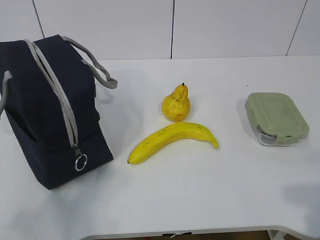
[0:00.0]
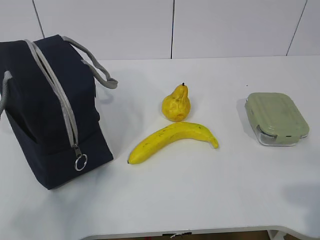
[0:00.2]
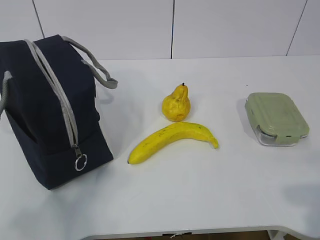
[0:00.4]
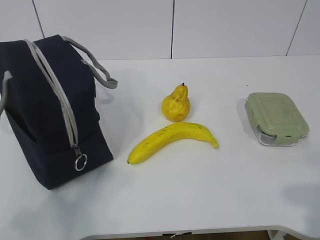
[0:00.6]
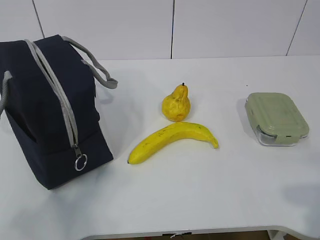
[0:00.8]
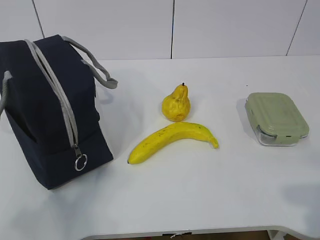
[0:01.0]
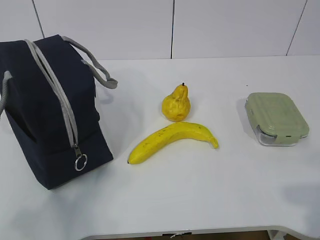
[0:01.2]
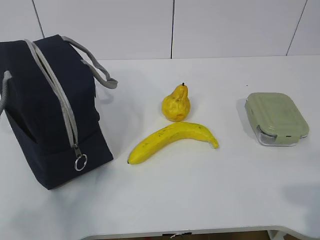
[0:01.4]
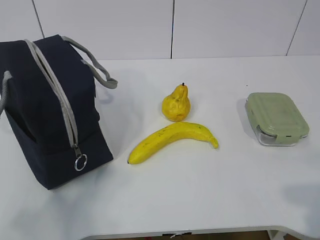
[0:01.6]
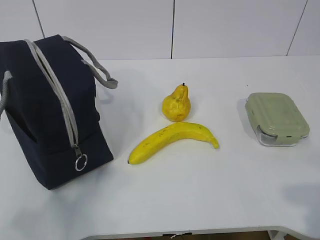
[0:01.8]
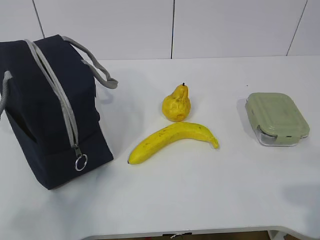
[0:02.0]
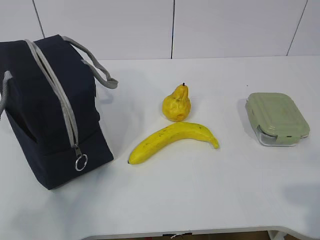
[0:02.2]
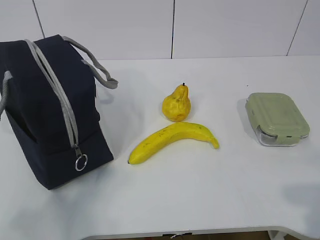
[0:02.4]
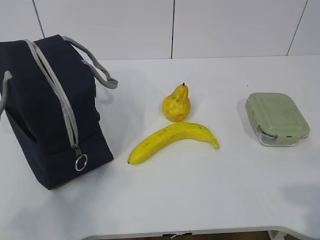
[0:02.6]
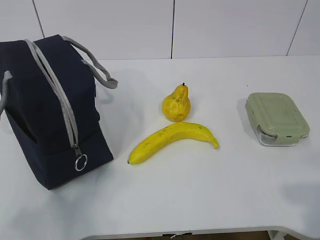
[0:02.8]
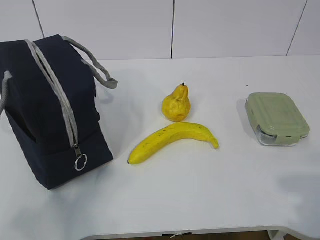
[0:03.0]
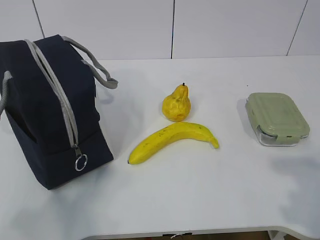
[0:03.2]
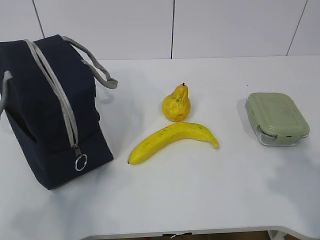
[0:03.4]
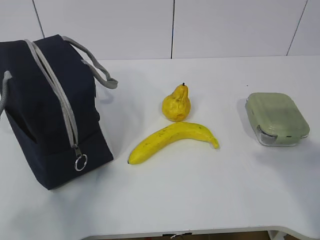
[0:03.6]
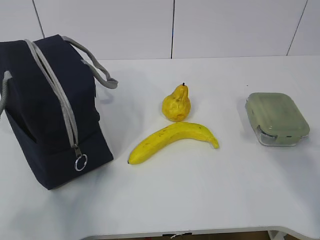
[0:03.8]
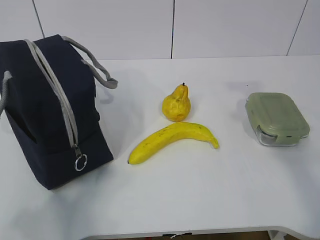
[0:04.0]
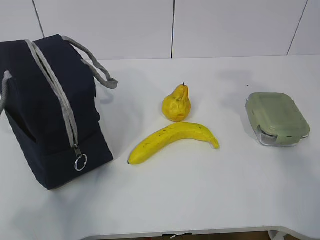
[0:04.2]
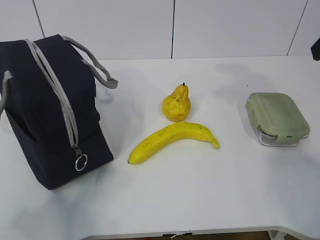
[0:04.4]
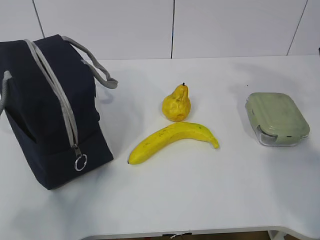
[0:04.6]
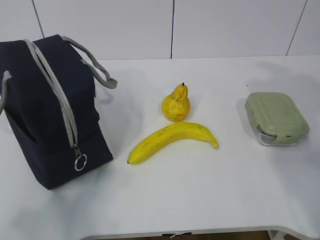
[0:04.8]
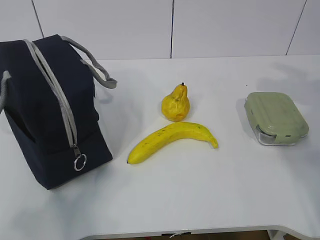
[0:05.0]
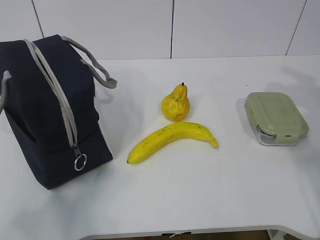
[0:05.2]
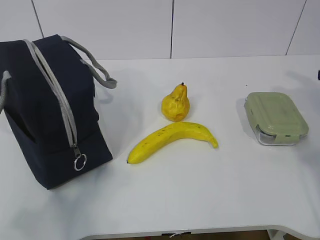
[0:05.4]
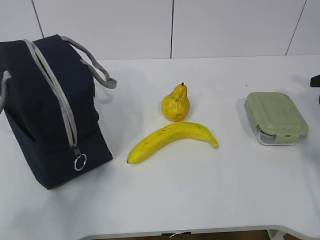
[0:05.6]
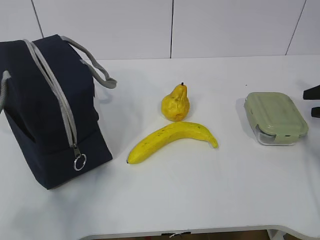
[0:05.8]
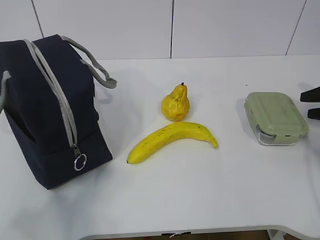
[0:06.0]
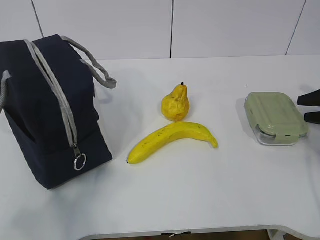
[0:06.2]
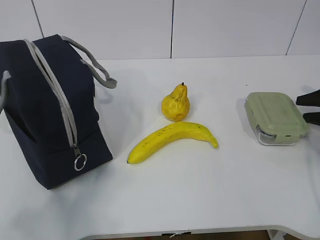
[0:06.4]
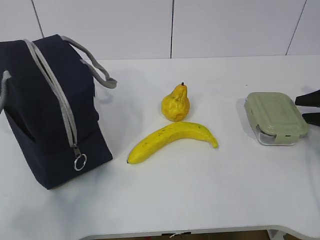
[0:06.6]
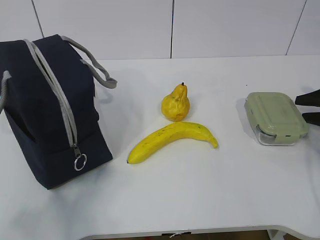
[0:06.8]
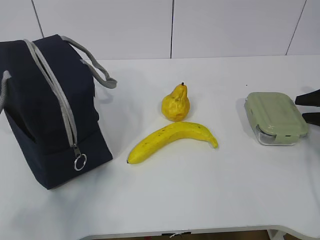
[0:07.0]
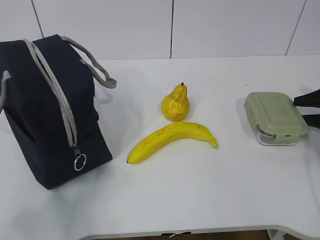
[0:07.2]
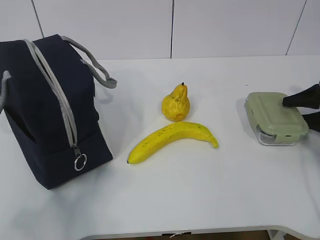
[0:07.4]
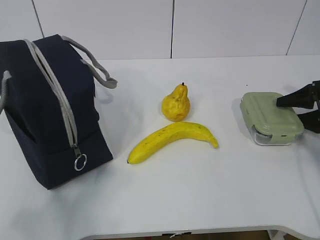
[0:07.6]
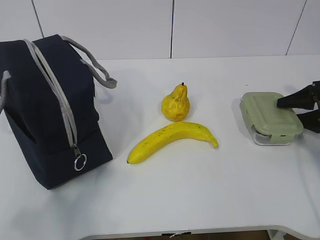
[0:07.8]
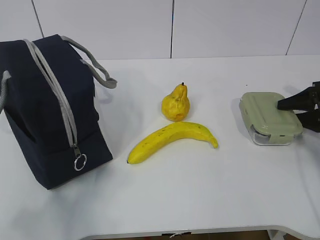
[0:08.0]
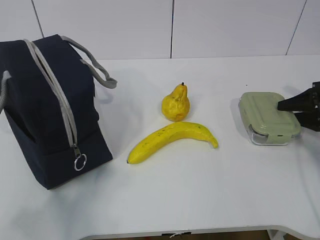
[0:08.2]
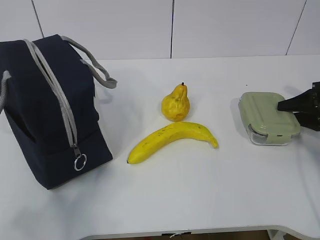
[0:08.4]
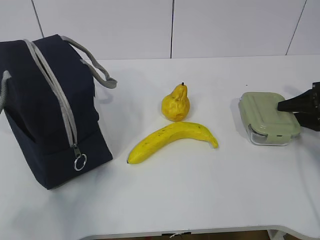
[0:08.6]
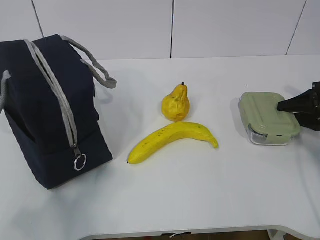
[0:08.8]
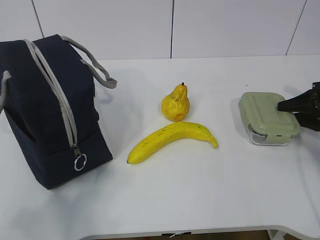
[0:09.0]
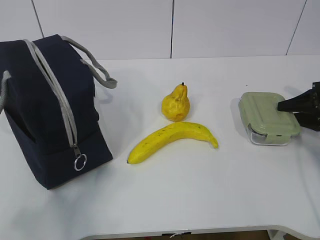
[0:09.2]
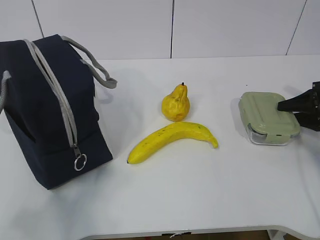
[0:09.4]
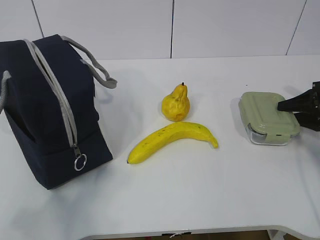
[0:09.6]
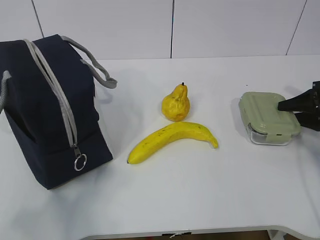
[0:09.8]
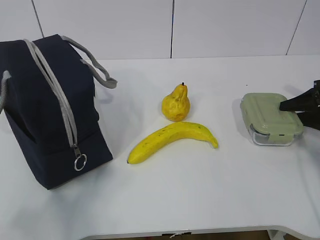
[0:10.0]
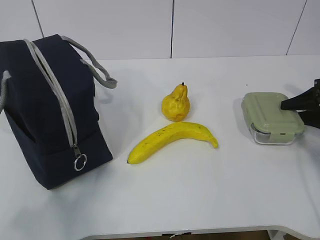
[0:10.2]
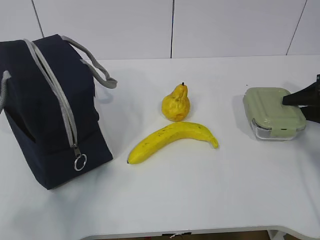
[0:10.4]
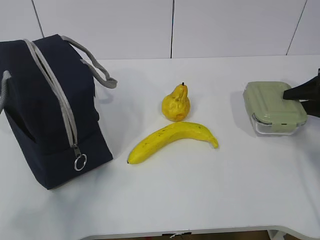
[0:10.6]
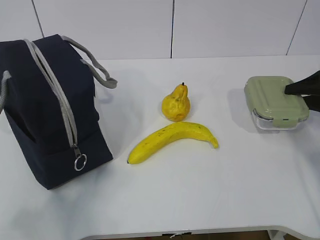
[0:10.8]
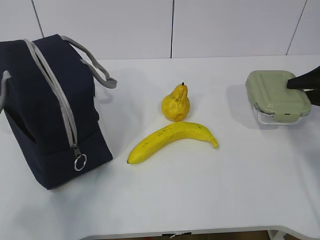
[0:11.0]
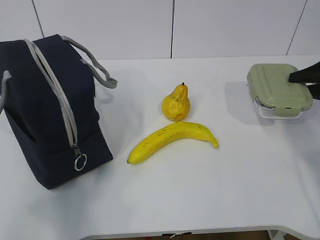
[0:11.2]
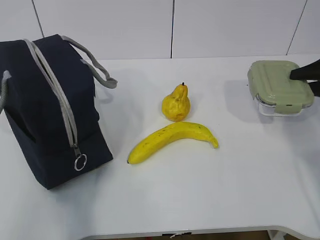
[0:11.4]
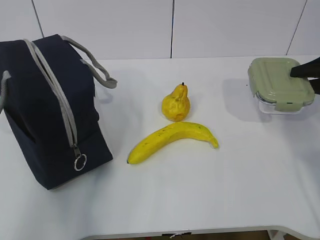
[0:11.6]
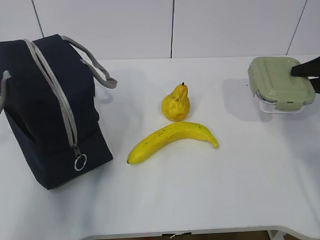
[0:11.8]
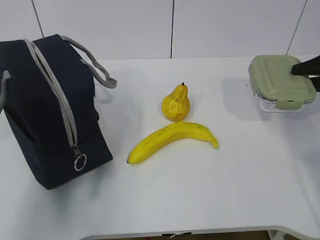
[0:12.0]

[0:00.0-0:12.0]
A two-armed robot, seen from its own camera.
Step, 0:00.0 to 0:08.4: Grasp the box with the right gripper.
0:01.6 to 0:03.0: Both grippers stay about where they are.
0:03.0 to 0:04.4: The right gripper heads forward, covering about 25 cm.
0:04.4 to 0:06.0: The right gripper shifts approximately 30 cm downward, to the right and forward.
0:06.0 to 0:07.6: The grippers make only small movements.
0:07.6 to 0:09.0: The two grippers keep their place.
0:09.0 to 0:10.4: There are only small adjustments of the grippers.
0:10.4 to 0:12.0: The left gripper heads forward, covering about 15 cm. The right gripper shifts roughly 5 cm upward.

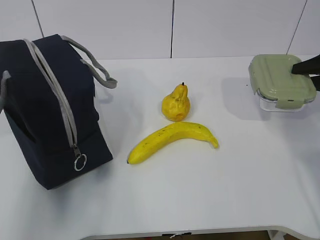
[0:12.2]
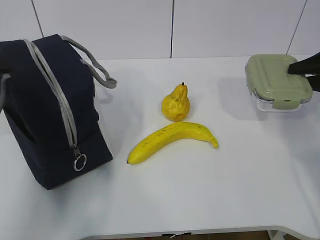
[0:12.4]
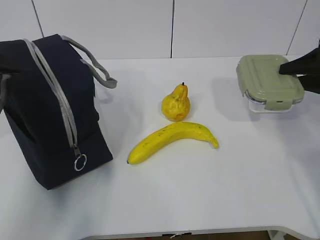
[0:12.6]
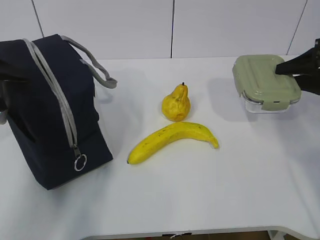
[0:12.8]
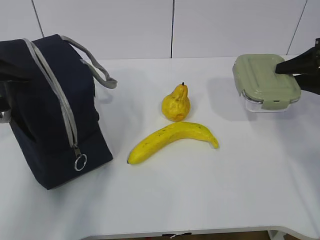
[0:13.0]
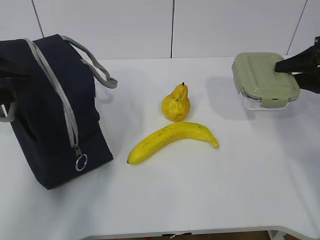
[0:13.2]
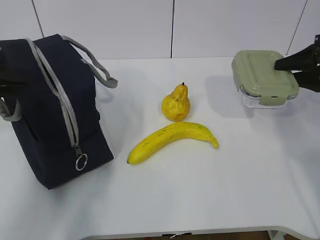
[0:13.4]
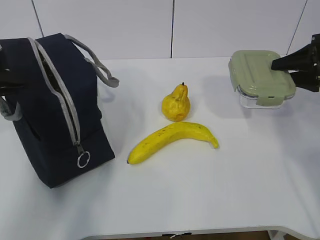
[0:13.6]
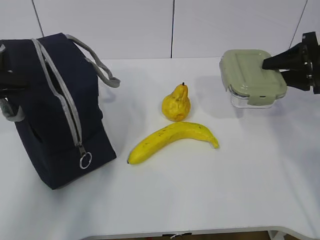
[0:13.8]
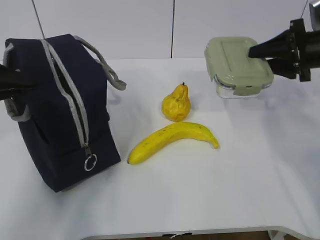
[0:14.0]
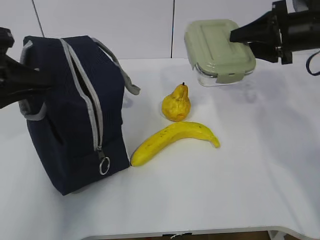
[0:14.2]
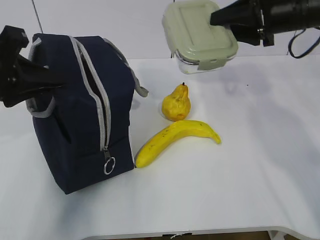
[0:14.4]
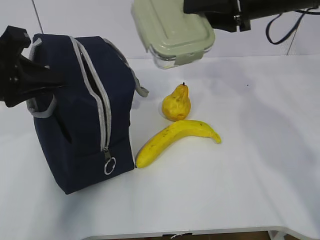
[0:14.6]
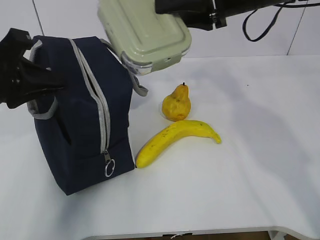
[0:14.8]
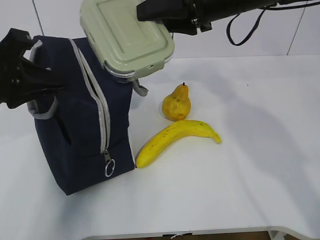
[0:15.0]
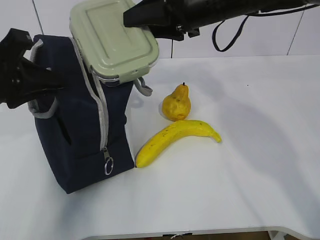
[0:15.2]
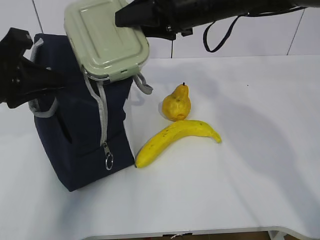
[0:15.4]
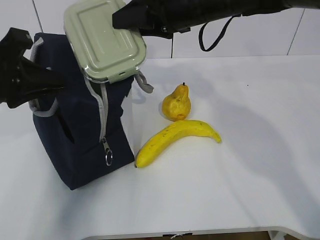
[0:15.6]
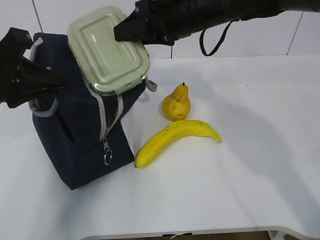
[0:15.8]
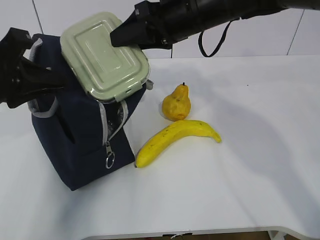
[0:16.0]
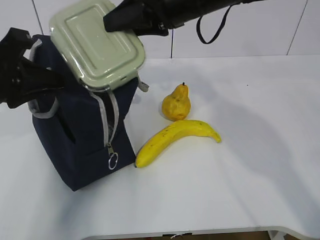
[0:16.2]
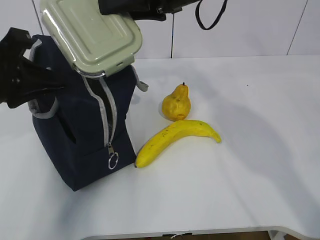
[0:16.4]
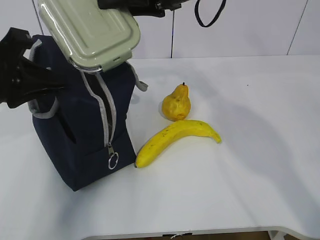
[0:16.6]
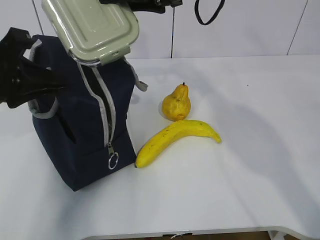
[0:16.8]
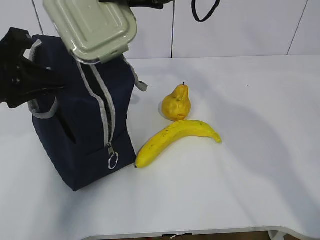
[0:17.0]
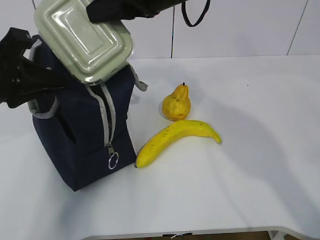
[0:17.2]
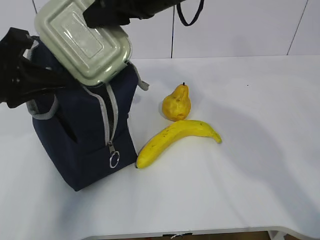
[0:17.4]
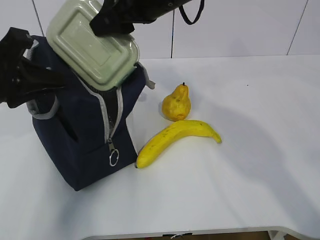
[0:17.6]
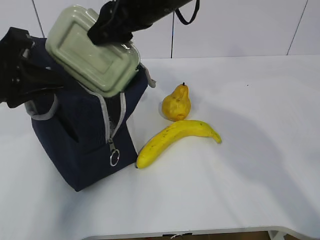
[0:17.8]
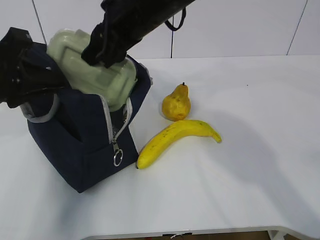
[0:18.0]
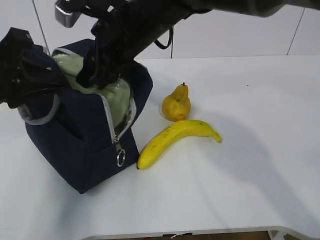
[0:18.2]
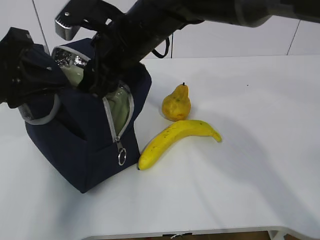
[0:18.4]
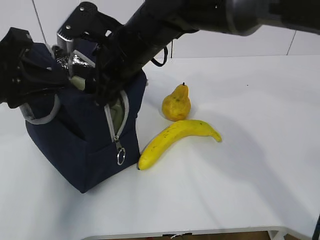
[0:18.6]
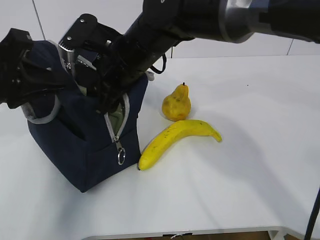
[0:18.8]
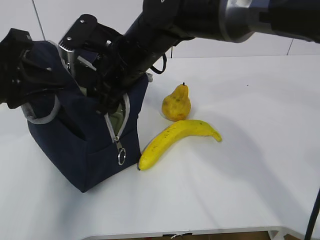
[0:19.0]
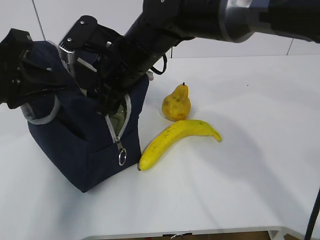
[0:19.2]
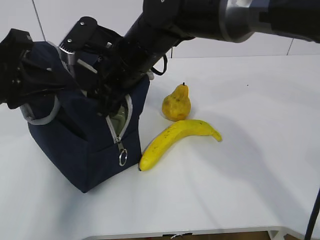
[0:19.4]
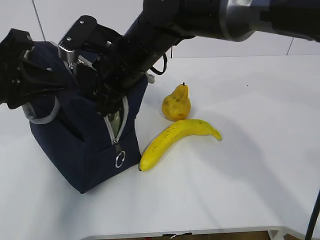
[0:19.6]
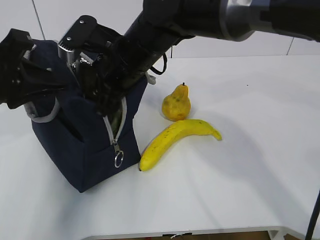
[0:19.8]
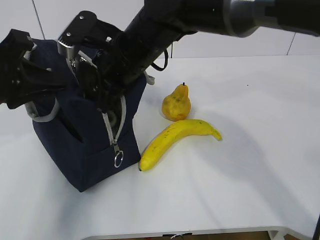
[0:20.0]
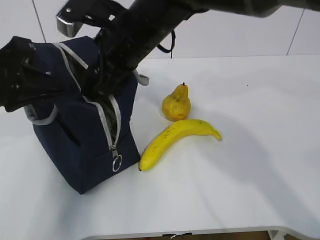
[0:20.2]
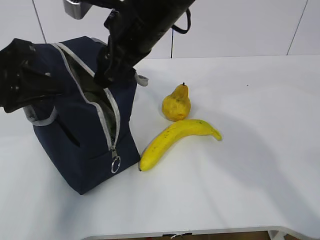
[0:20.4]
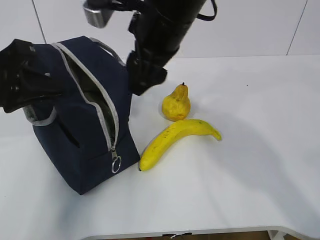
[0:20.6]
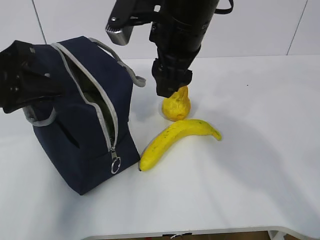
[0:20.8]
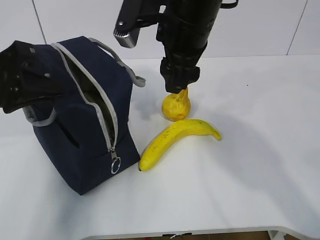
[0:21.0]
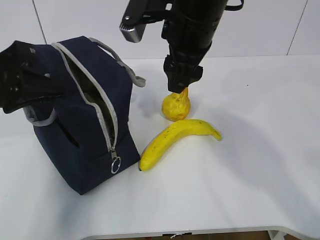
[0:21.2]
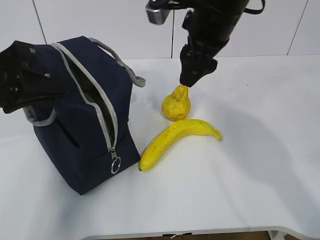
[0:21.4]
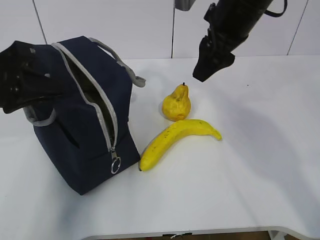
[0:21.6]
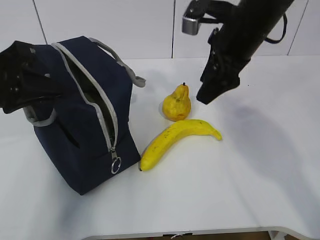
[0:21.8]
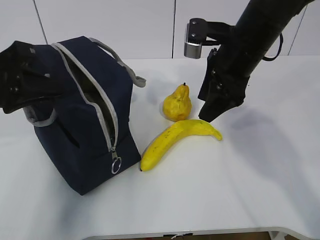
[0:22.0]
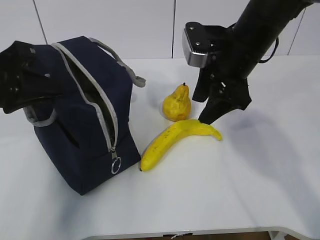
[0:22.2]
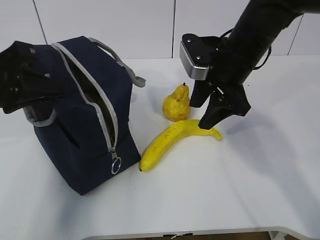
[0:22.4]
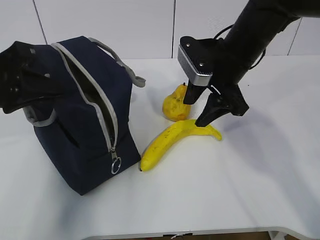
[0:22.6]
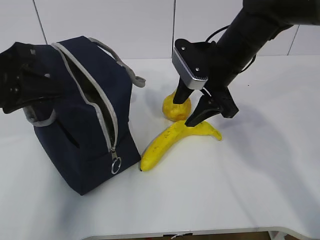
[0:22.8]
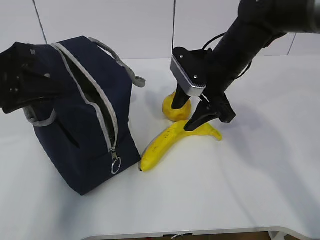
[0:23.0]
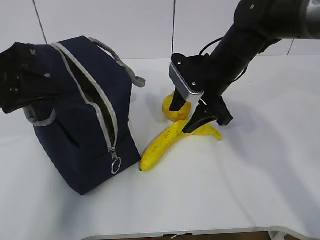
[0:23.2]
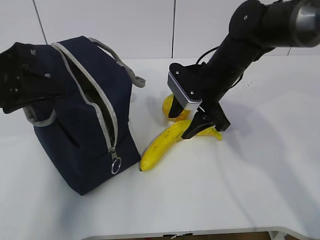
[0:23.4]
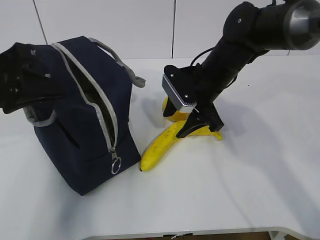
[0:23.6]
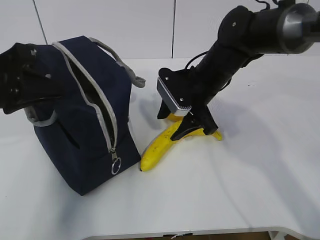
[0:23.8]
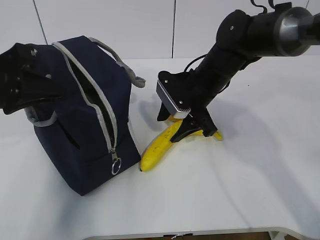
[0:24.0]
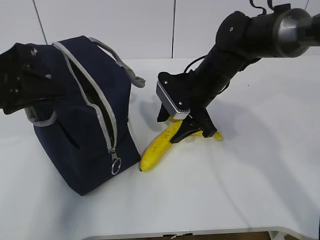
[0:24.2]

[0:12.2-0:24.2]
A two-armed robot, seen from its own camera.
Step, 0:13.6 to 0:20.0: Place the box into the package with the right gripper.
0:12.2 to 0:13.8: The left gripper travels forward by about 5 cm, and closes, while the right gripper moves to the left, some 5 cm.
0:13.8 to 0:15.2: The right gripper travels to the left and upward by approximately 25 cm; the left gripper heads to the right, covering some 5 cm.
0:15.2 to 0:16.6: The grippers make only small movements.
0:16.6 to 0:18.2: The right gripper is displaced to the left and downward by approximately 10 cm.
0:18.2 to 0:19.8: The grippers stay close to where they were, moving slightly.
0:19.8 to 0:21.2: The right gripper goes some 10 cm to the right and upward.
0:21.2 to 0:22.6: The right gripper goes roughly 10 cm to the right and downward.
0:22.6 to 0:24.2: The right gripper moves downward, approximately 5 cm.
